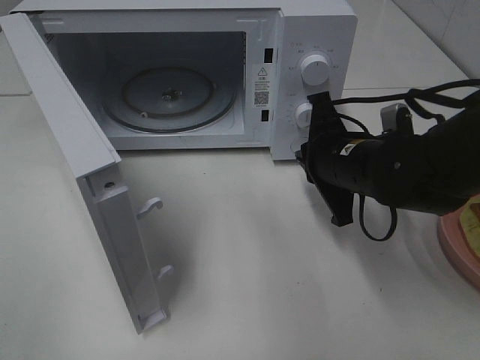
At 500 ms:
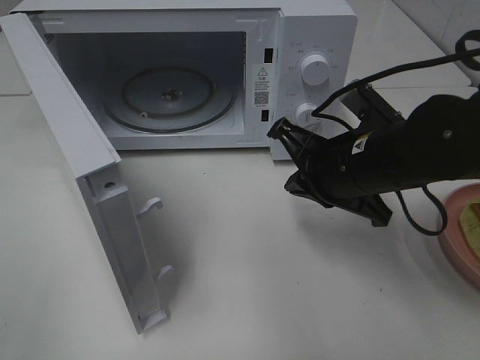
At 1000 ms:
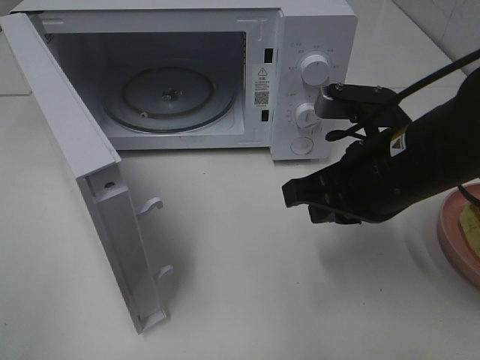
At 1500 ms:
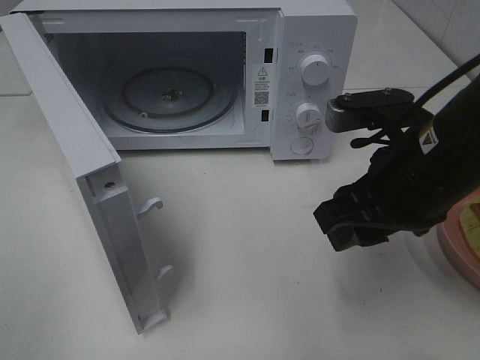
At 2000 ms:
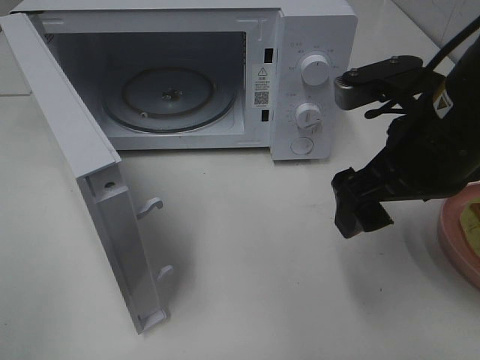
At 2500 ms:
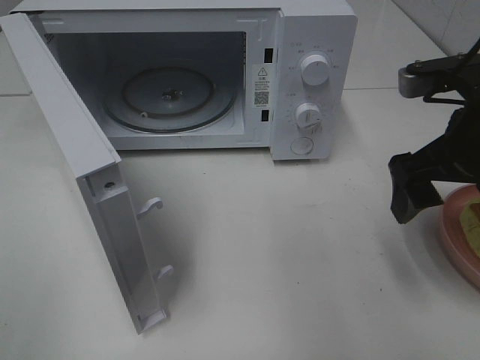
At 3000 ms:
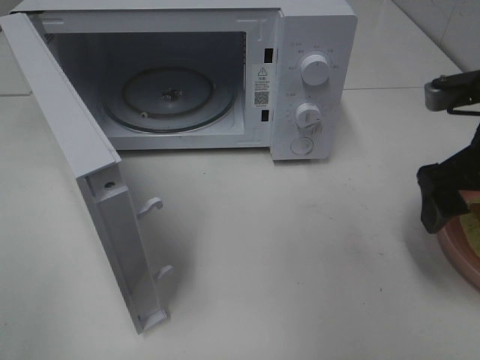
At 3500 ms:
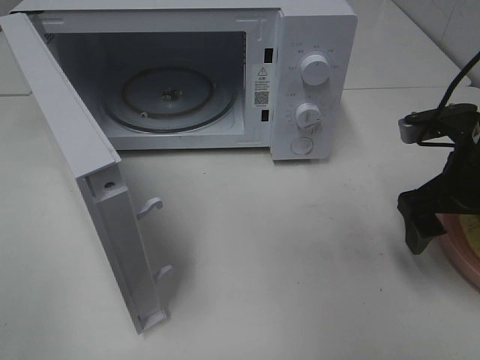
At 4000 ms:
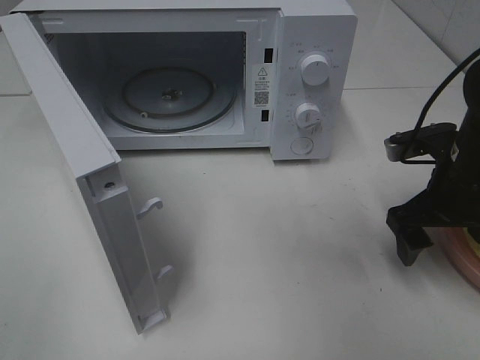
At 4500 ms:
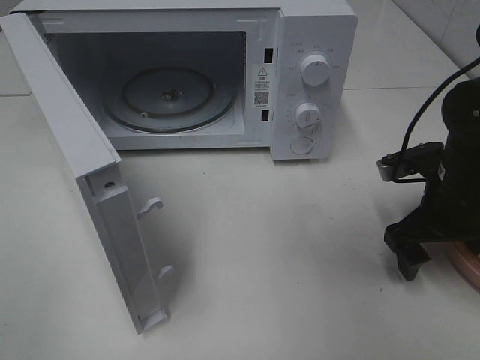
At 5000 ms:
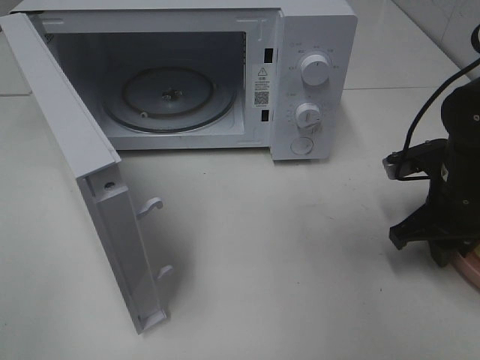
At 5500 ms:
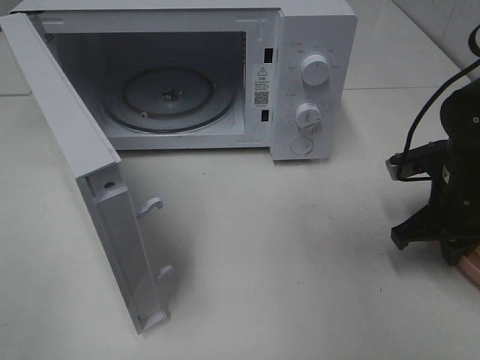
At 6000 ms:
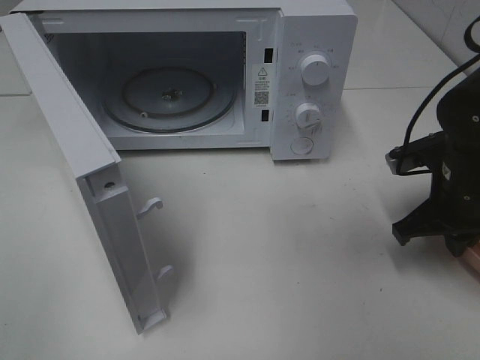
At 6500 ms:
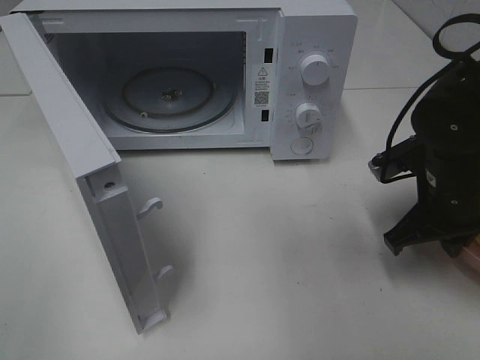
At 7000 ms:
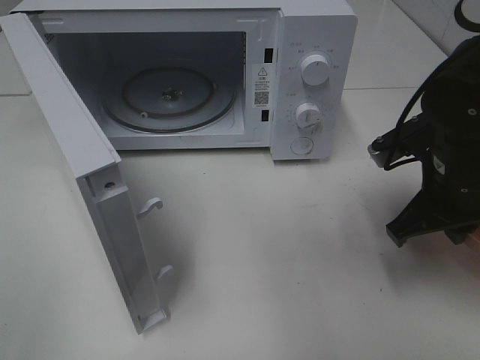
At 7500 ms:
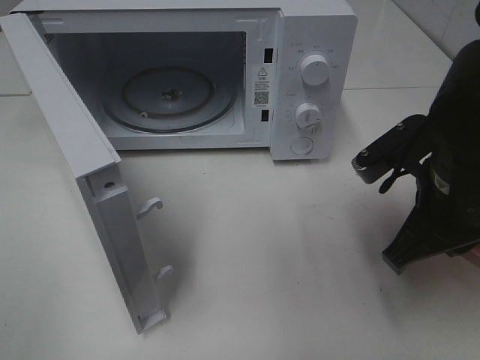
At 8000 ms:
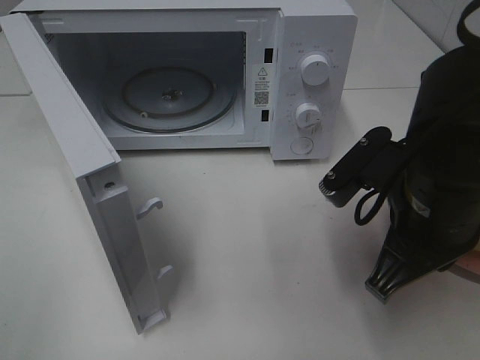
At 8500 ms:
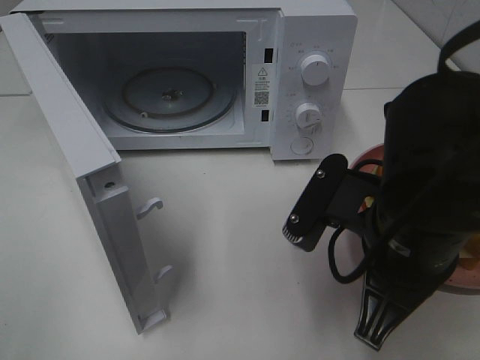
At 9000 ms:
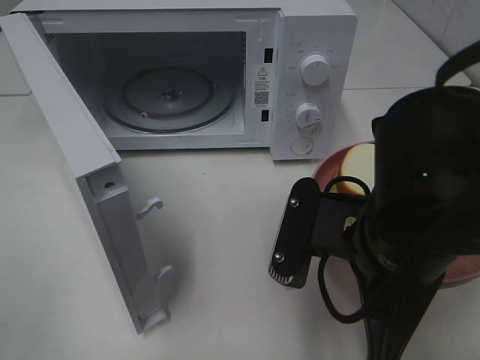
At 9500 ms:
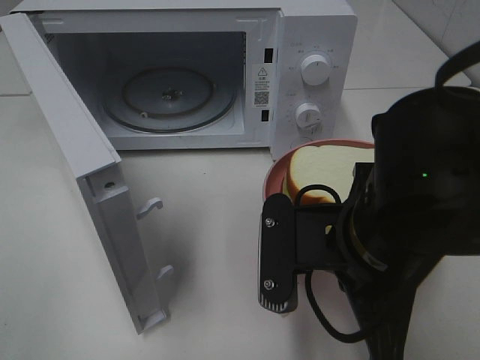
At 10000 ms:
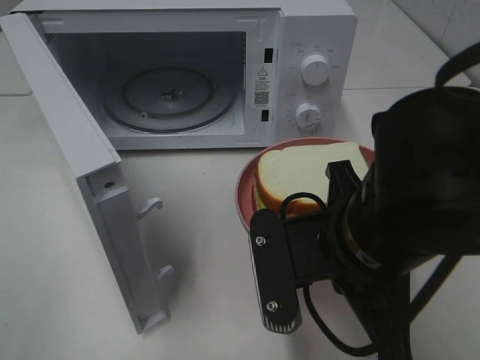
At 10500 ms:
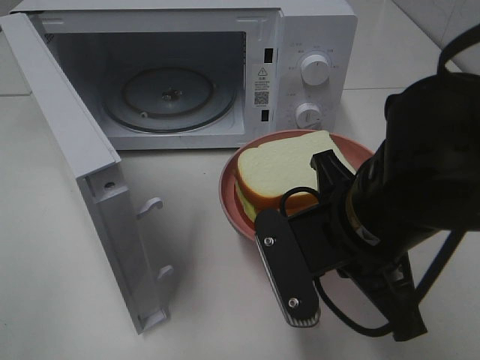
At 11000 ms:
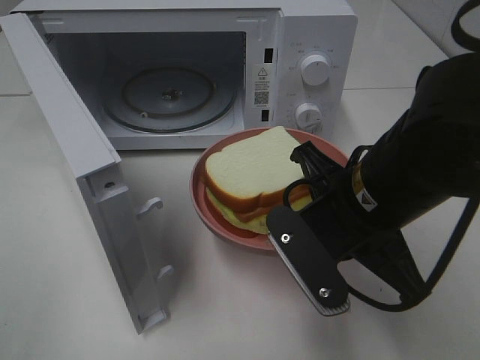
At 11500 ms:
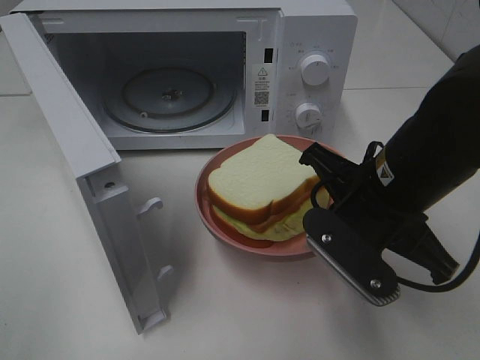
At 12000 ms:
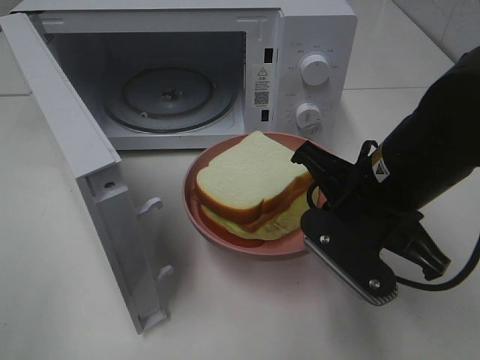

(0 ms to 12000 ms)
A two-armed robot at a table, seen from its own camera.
Task of the whole recording: Heat Sandwich.
Step, 0 ms - 5500 ms: Right hand: grab the plate with the sandwich.
0 ms - 2000 ms: The right gripper travels upward and backward by approximately 15 cm, and opens up.
2000 ms - 4000 ms: The right gripper is displaced downward, to the right and forward by roughly 15 cm.
4000 ms - 6000 ms: The right gripper closes.
6000 ms - 8000 ms: The right gripper is displaced to the left, backward and upward by about 15 cm.
8000 ms - 10000 ms: The right gripper goes some 5 cm to the left.
10000 ms - 12000 ms: The right gripper is displaced forward by some 5 cm.

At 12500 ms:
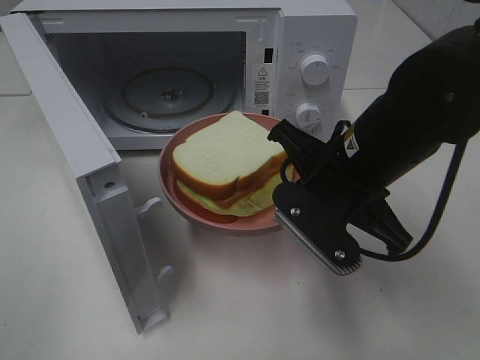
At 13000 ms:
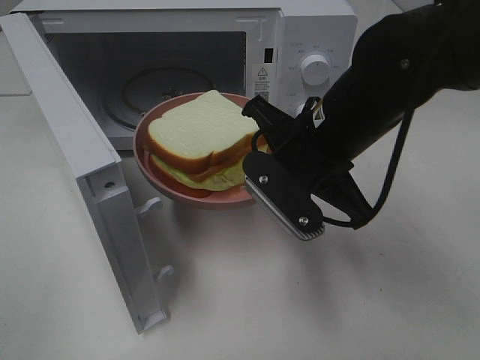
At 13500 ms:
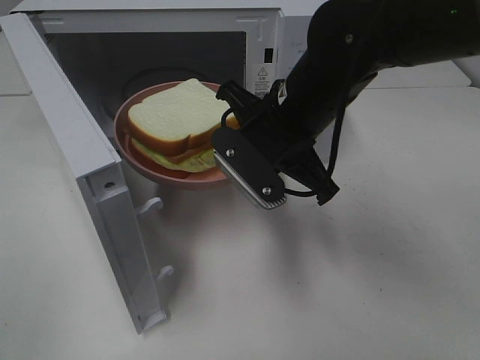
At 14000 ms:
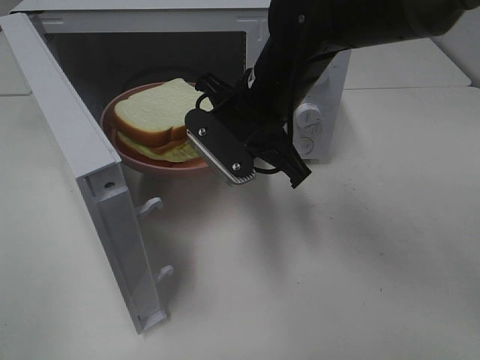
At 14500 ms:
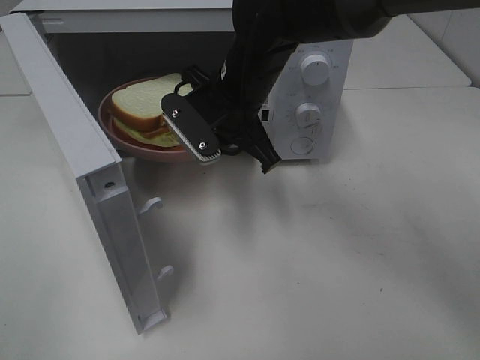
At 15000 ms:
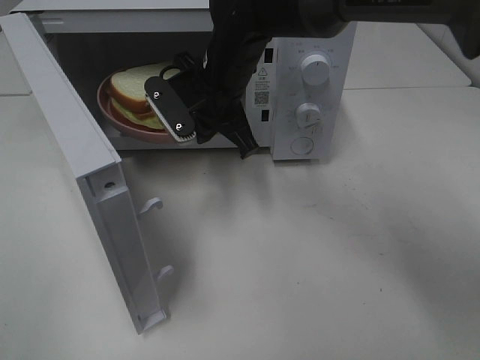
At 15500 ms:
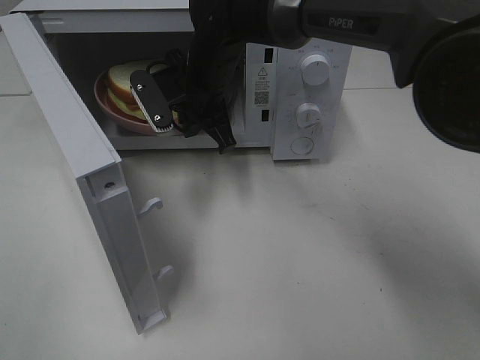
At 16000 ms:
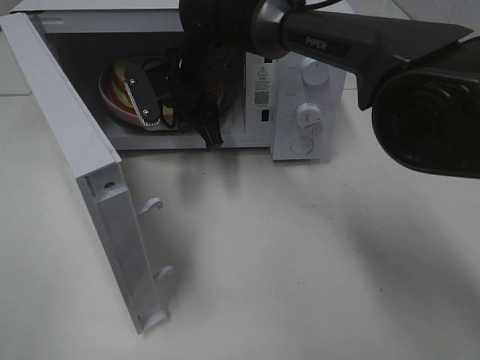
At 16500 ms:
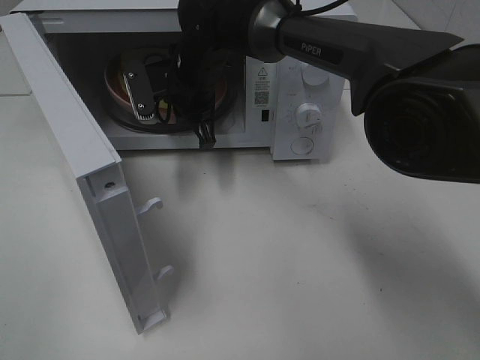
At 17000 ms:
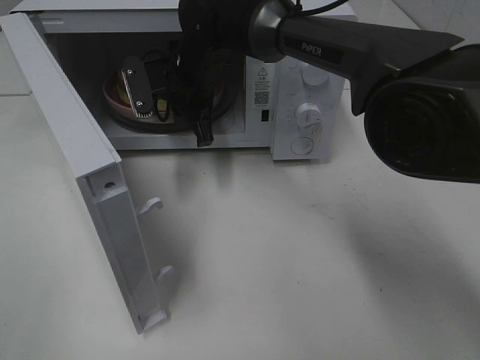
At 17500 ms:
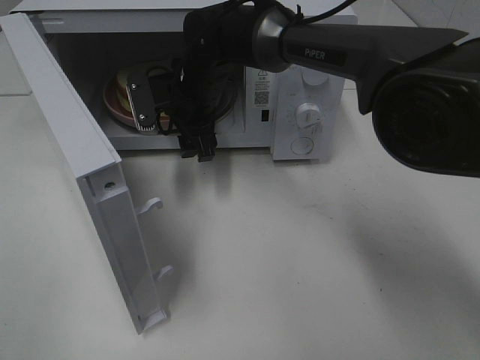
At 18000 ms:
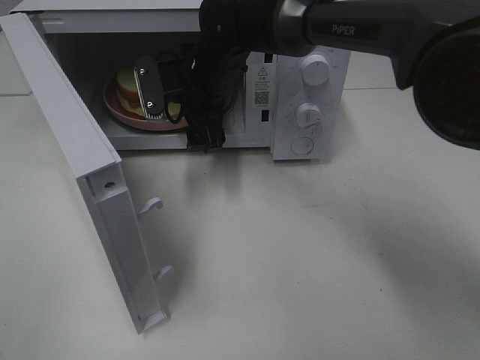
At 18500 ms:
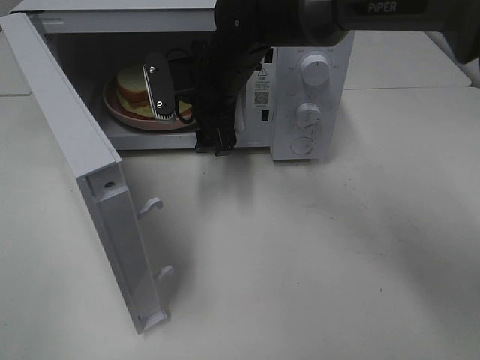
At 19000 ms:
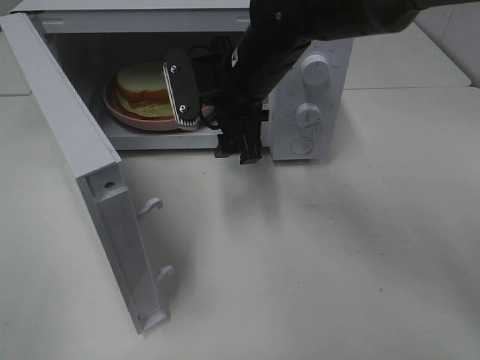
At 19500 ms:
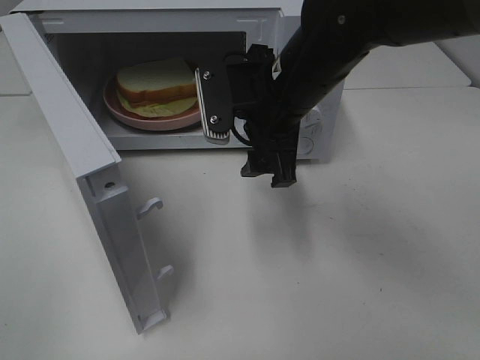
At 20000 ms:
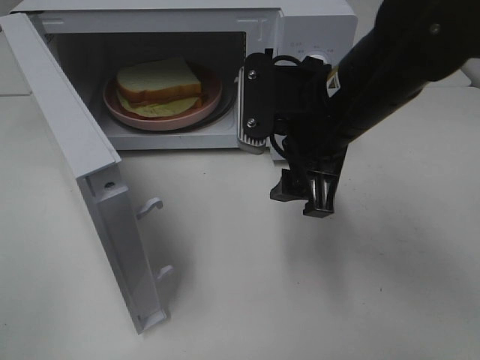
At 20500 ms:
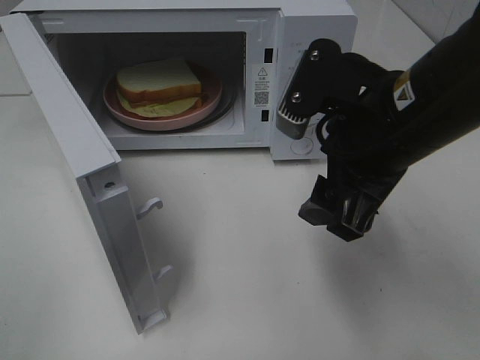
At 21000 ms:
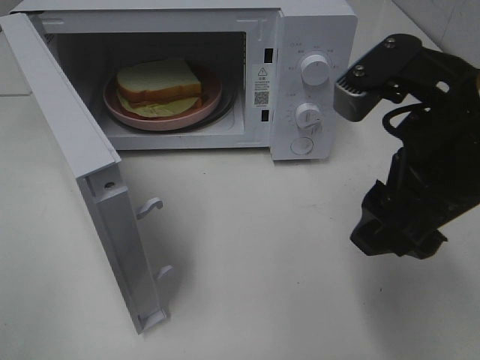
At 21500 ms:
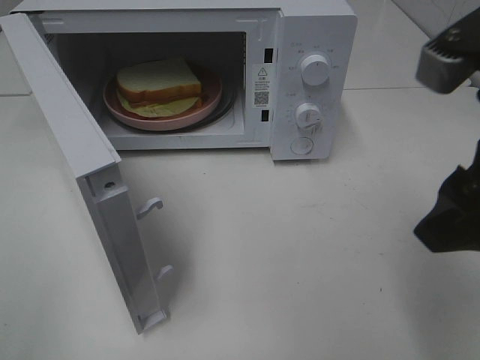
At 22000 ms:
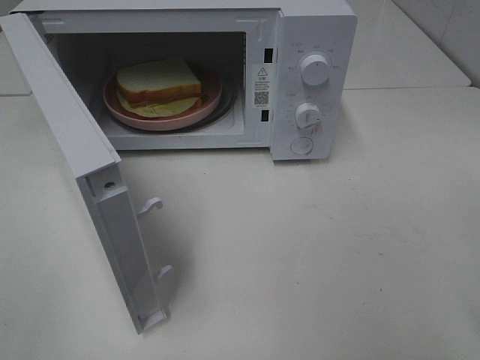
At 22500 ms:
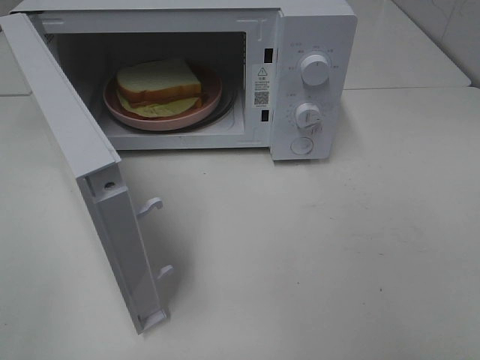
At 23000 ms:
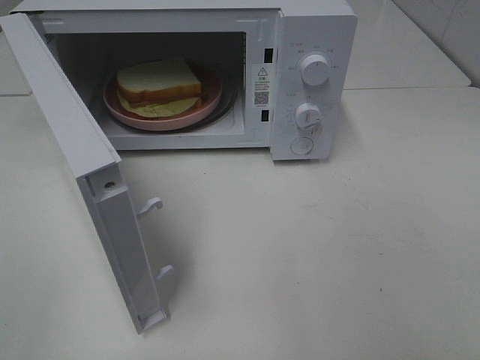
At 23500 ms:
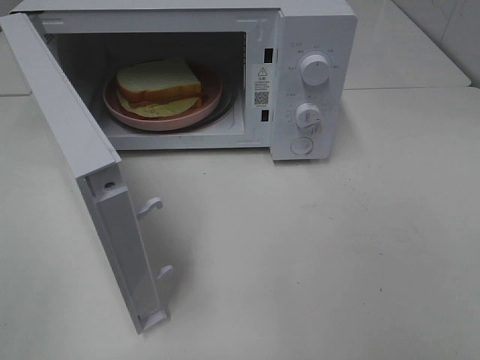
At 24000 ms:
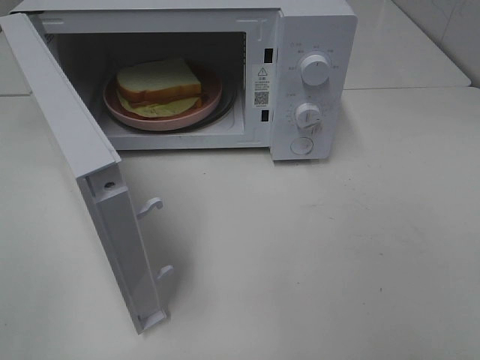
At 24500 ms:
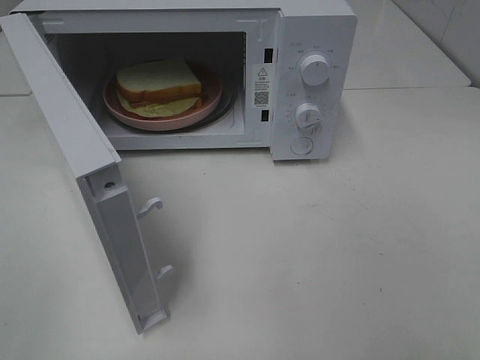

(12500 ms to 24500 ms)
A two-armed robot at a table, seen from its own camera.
Task of the whole recording: Heat Sandwich.
Step, 12500 ms - 18000 ms: Right hand: place the plate in the microwave.
12500 ms - 14500 ms: The right gripper moves forward and to the left, roughly 15 cm.
14500 ms - 16500 ms: The right gripper heads forward and to the left, covering some 10 cm.
16500 ms - 18500 ms: The right gripper moves roughly 5 cm, and opens up.
18500 ms - 20500 ms: The right gripper travels backward and to the right by about 25 cm.
20500 ms - 22500 ms: The right gripper is displaced backward and to the right by about 25 cm.

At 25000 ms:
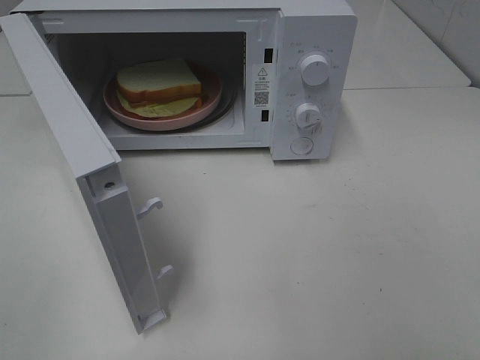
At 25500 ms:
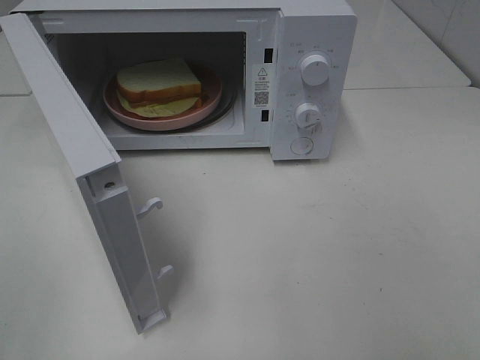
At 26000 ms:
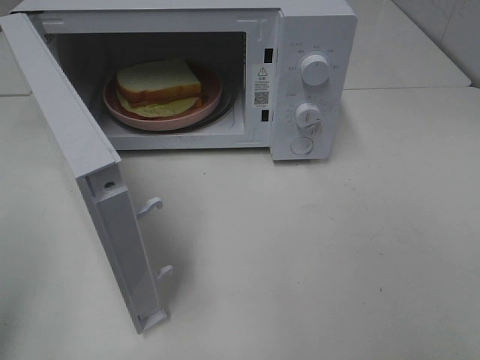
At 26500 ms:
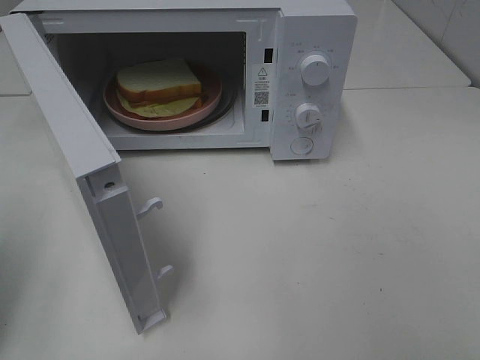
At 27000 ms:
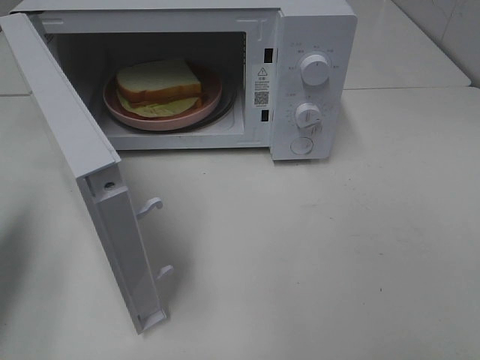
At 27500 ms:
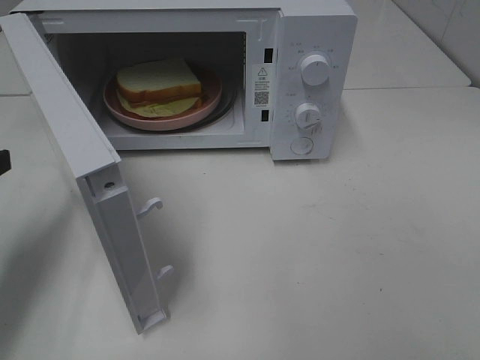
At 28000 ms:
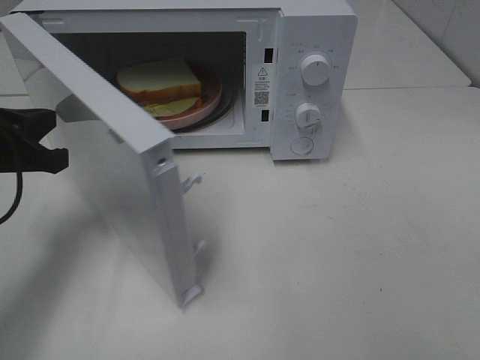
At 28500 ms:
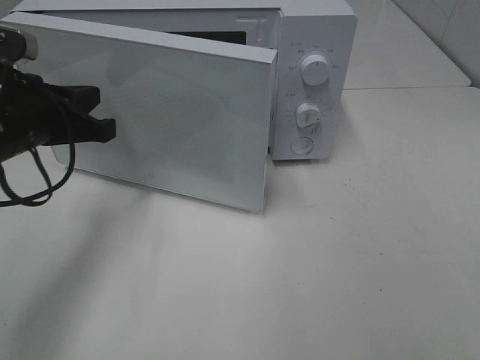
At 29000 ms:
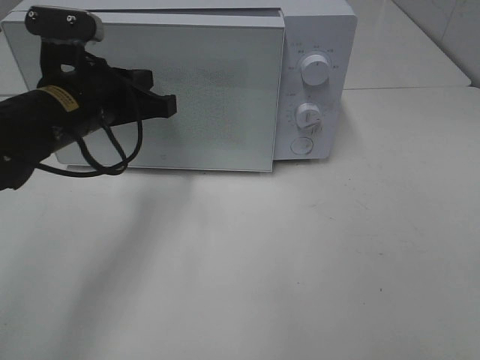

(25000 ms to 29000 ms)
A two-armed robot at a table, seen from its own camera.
Task of the whole recording: Heat Sandwich.
25000 ms - 27000 ms: The left gripper heads forward, covering approximately 20 cm, and closes.
27000 ms - 29000 ms: The left gripper travels to the right and forward by approximately 20 cm.
